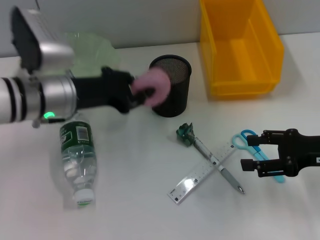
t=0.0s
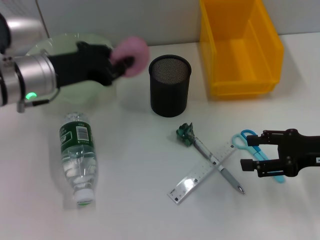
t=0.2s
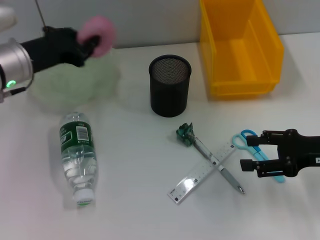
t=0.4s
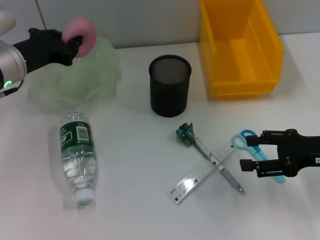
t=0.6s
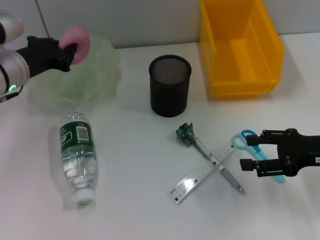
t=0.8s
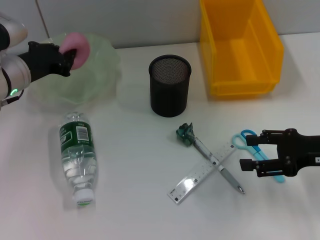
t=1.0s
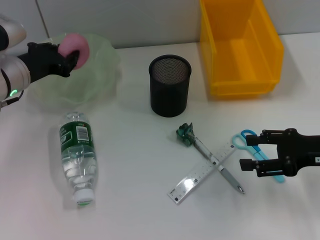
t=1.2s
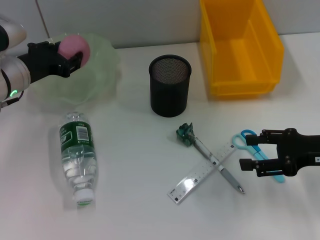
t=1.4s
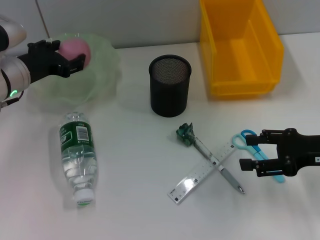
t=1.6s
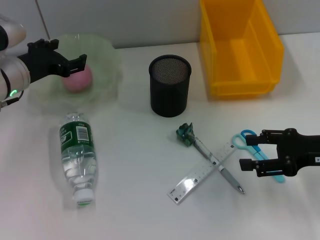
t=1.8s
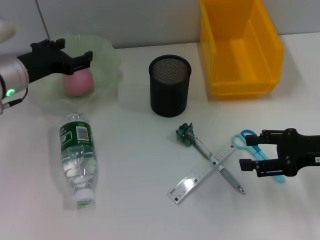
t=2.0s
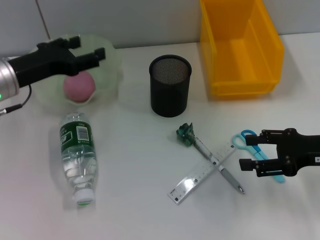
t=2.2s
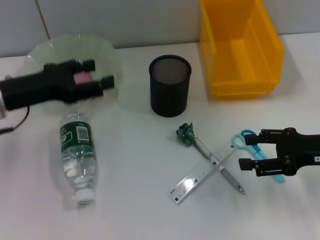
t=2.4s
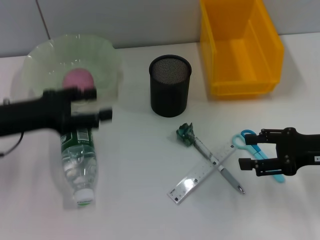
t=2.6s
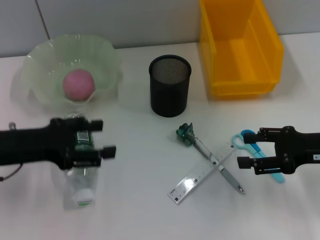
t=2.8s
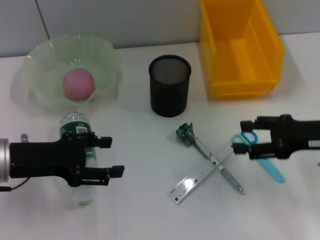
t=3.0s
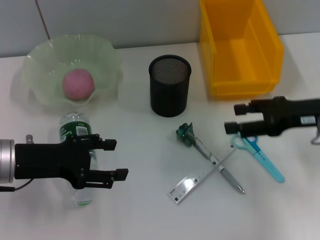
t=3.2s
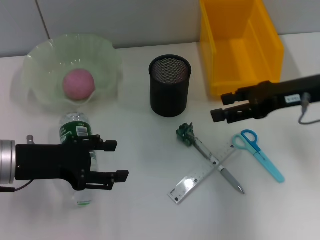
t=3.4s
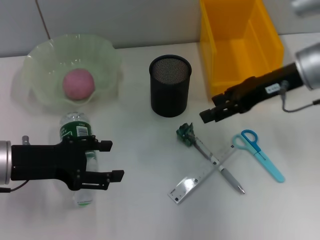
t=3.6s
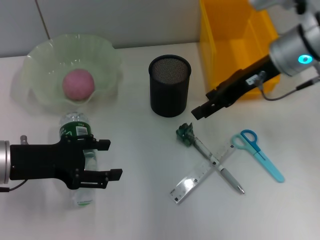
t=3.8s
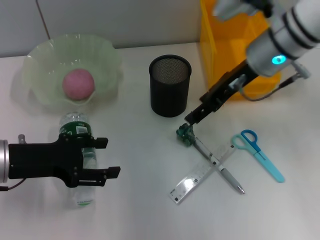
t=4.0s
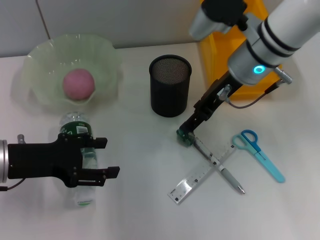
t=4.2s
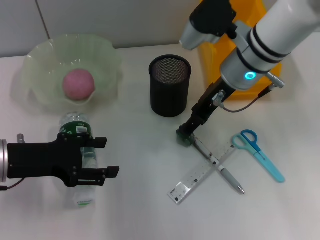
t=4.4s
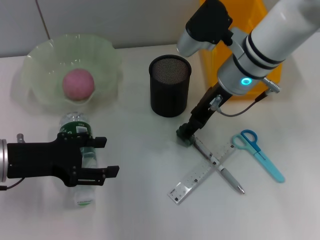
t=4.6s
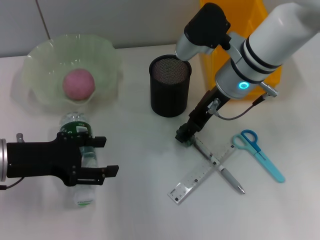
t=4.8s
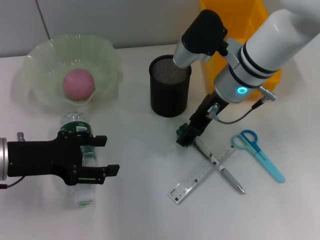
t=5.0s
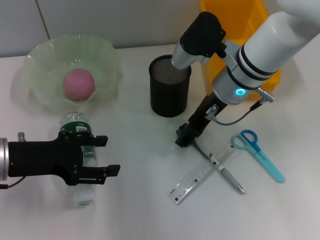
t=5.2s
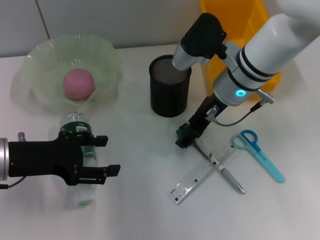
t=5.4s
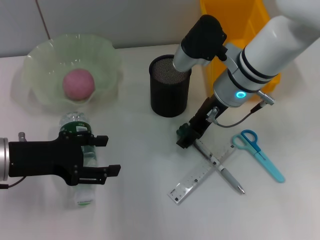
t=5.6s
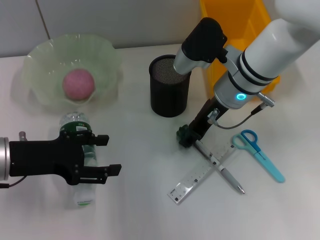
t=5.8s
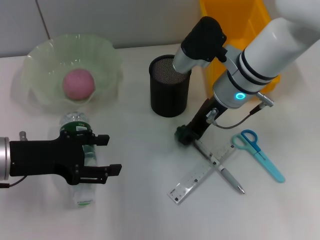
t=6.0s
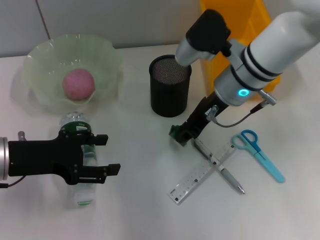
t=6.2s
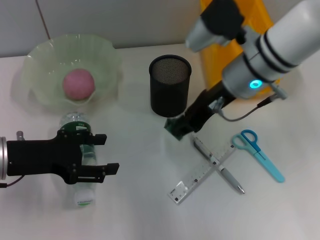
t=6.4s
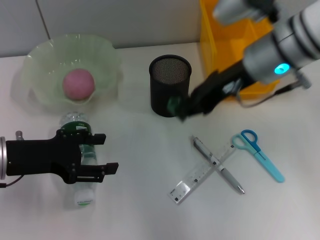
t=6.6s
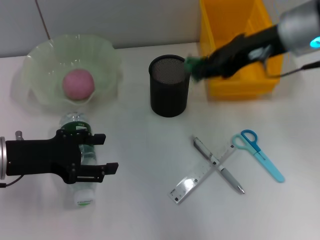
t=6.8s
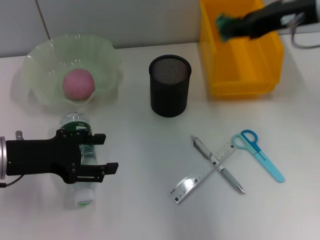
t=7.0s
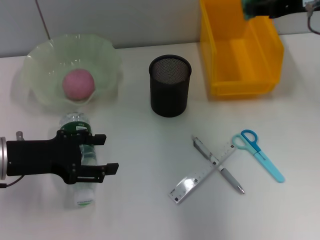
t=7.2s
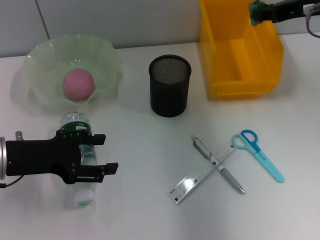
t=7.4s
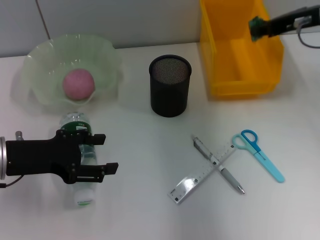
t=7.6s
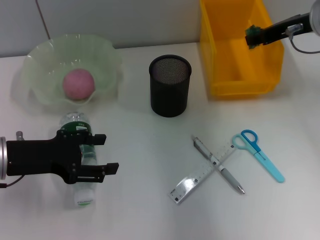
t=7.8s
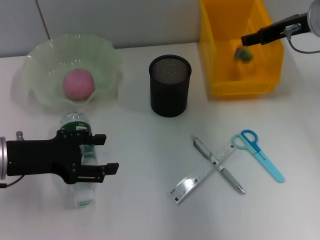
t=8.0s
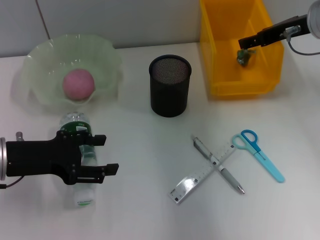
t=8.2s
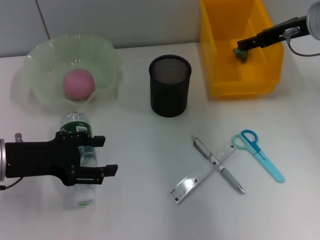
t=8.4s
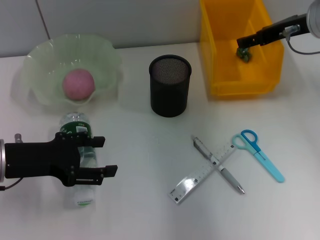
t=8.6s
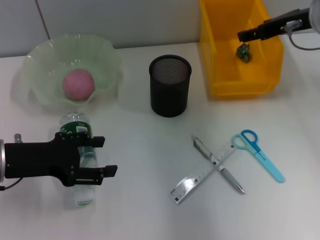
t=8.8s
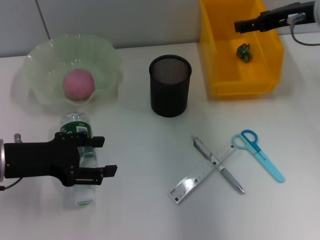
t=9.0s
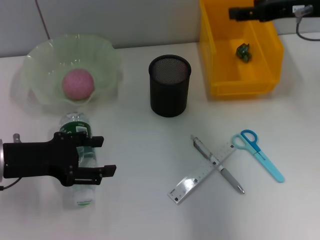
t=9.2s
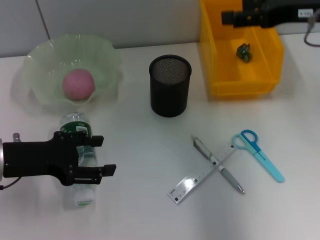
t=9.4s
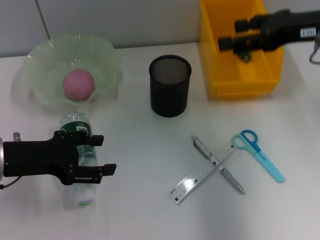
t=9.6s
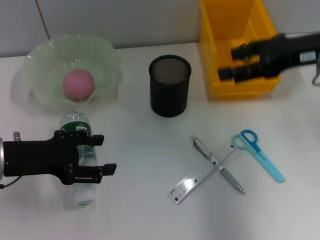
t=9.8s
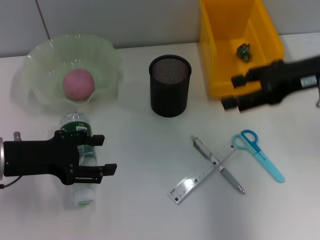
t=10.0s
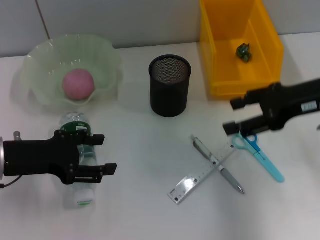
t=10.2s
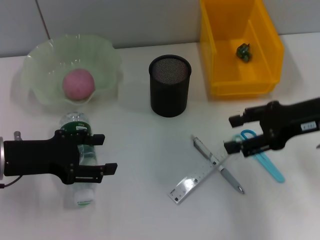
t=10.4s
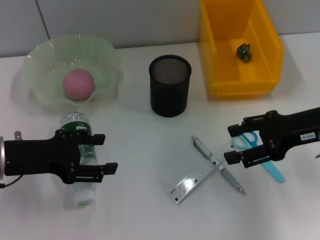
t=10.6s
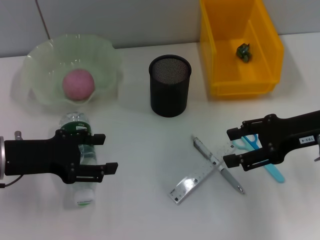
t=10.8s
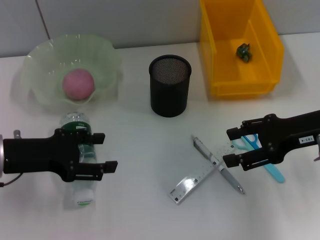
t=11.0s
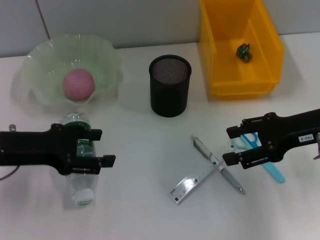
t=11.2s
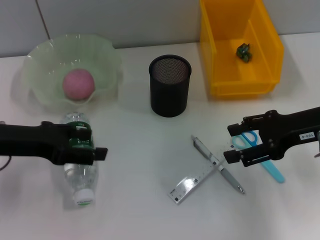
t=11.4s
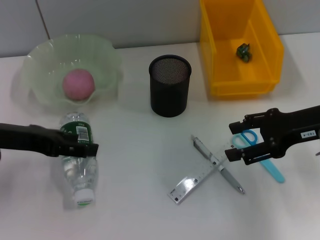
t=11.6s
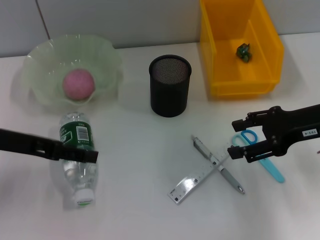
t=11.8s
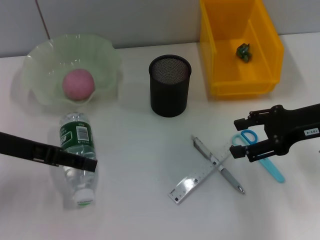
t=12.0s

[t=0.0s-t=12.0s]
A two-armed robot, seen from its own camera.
Step, t=0.0s to t=1.6s: Place the peach into the fruit bowl with the left hand.
Step, t=1.8s to t=5.8s: Grab the plastic with the right hand.
Step, t=6.0s to t=8.0s: Place the plastic into the trash can with the right hand.
t=0.0s to t=1.6s: The left gripper goes about 5 cm to the left.
t=1.6s to t=3.0s: The left gripper shifts approximately 10 cm backward, and opens up.
t=3.0s to t=4.4s: The right gripper is displaced to the left and forward by roughly 20 cm.
t=4.4s to t=6.0s: There are only small adjustments of the grippers.
t=6.0s to t=7.6s: The right gripper shifts about 15 cm to the right and upward, and closes.
t=7.6s to t=9.0s: The right gripper opens.
t=9.0s to t=10.4s: The right gripper heads backward and downward, covering roughly 10 cm.
t=10.4s to t=12.0s: The left gripper goes about 5 cm upward.

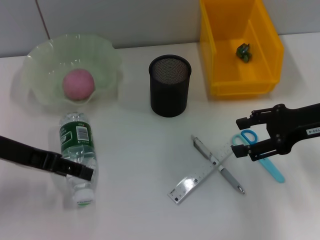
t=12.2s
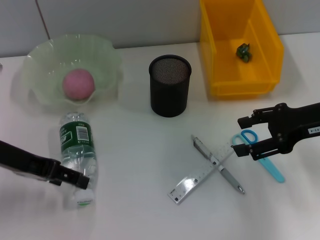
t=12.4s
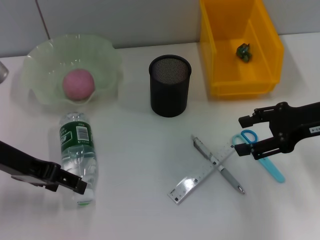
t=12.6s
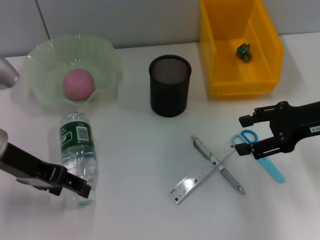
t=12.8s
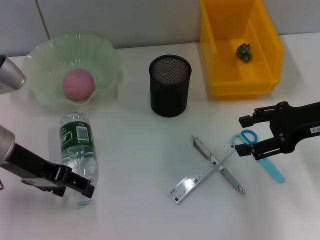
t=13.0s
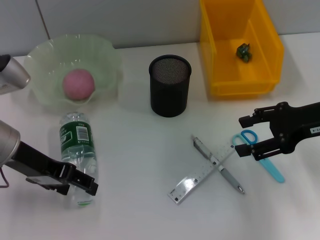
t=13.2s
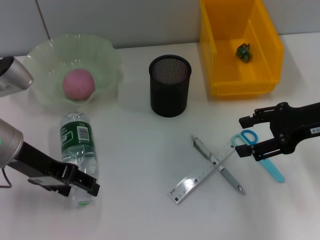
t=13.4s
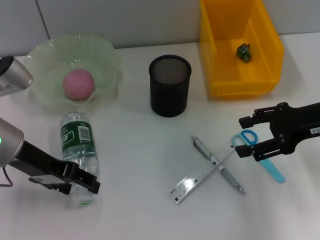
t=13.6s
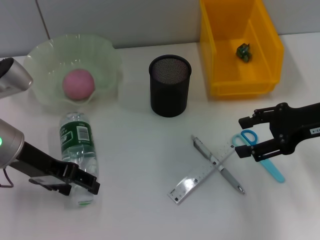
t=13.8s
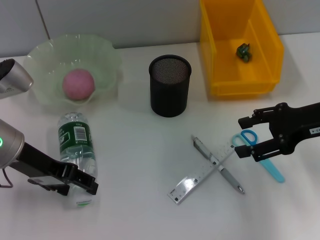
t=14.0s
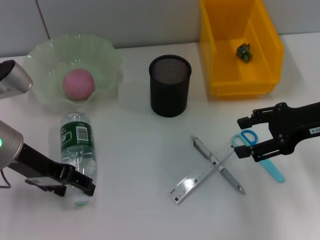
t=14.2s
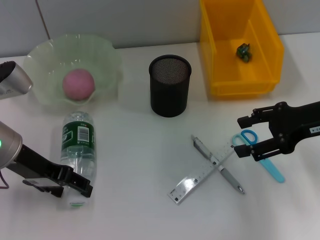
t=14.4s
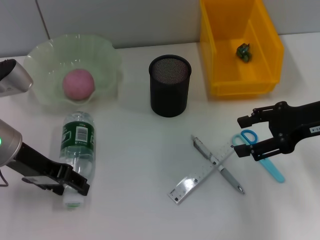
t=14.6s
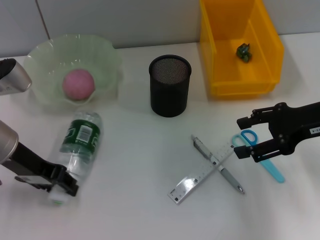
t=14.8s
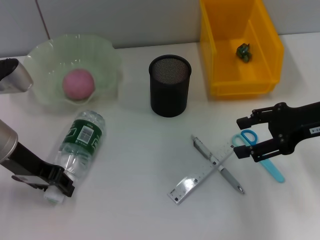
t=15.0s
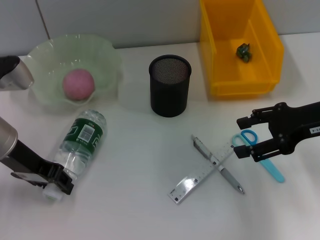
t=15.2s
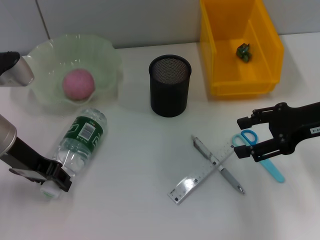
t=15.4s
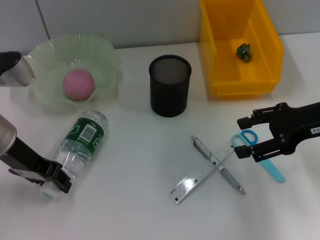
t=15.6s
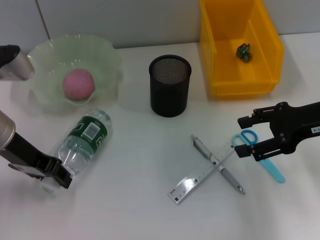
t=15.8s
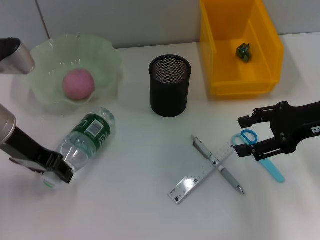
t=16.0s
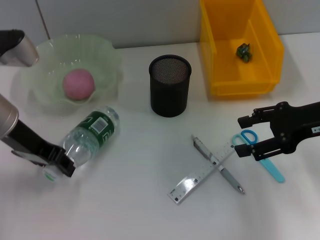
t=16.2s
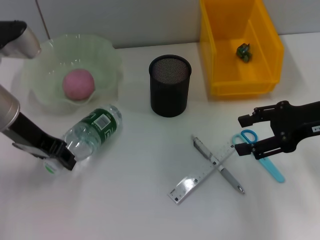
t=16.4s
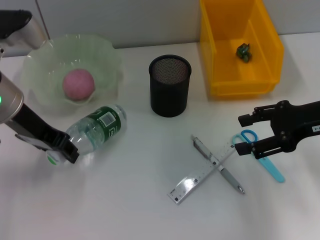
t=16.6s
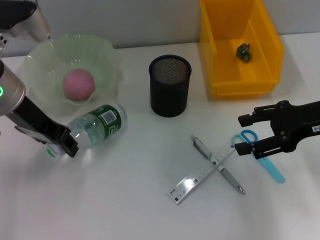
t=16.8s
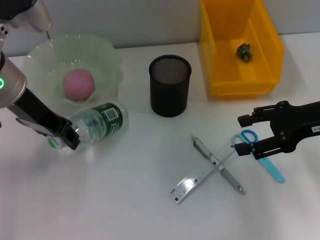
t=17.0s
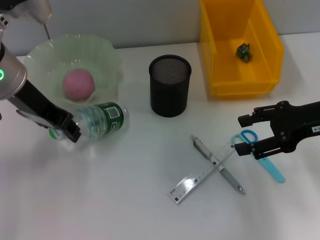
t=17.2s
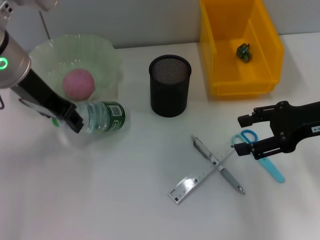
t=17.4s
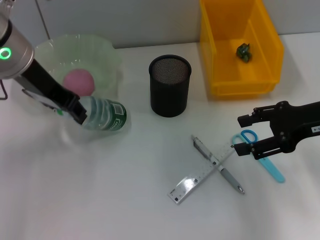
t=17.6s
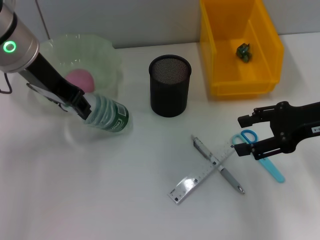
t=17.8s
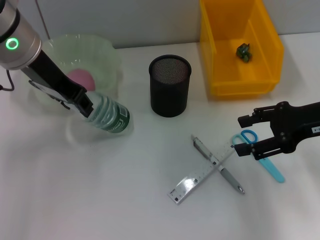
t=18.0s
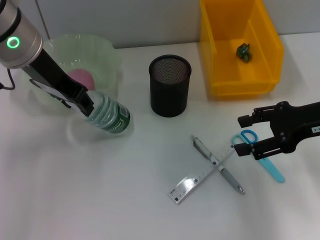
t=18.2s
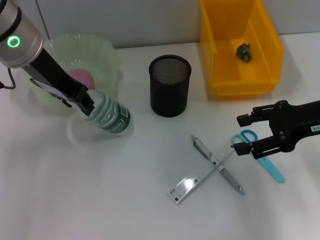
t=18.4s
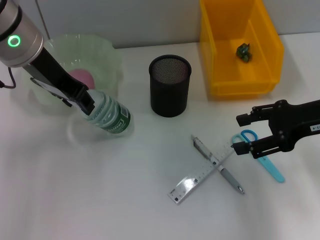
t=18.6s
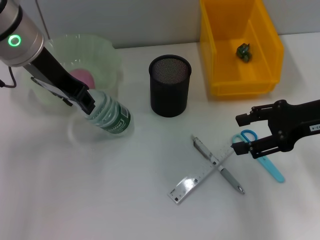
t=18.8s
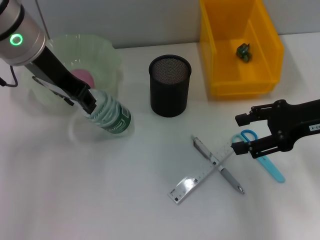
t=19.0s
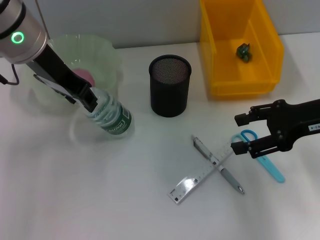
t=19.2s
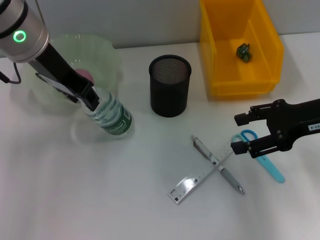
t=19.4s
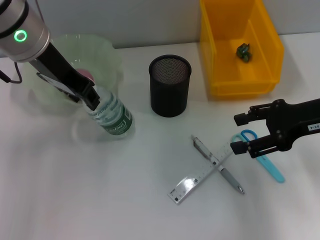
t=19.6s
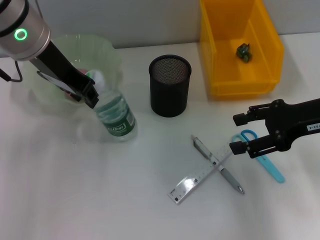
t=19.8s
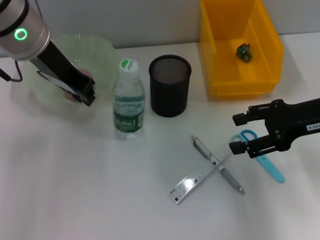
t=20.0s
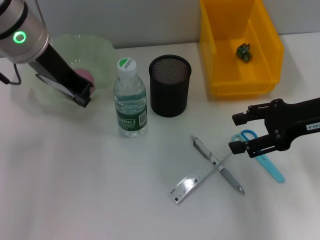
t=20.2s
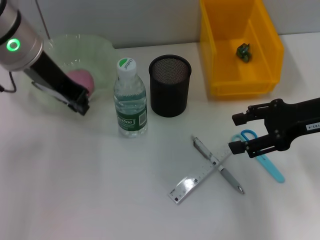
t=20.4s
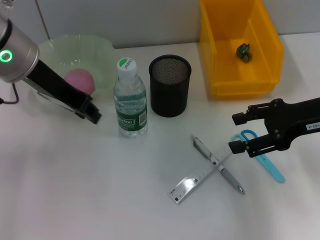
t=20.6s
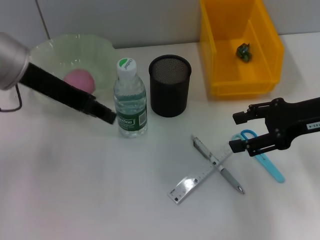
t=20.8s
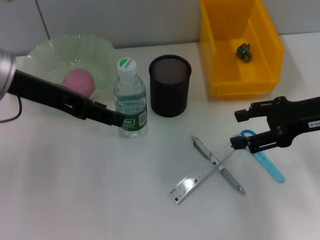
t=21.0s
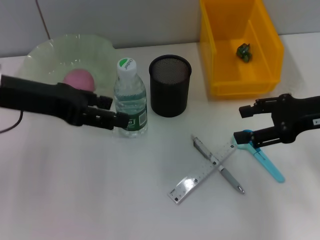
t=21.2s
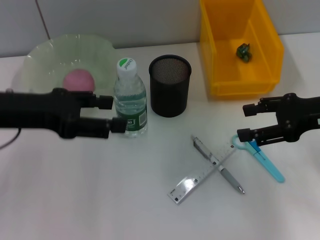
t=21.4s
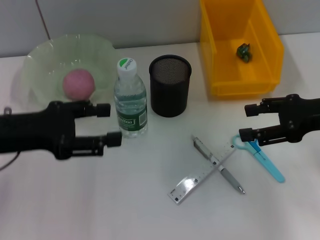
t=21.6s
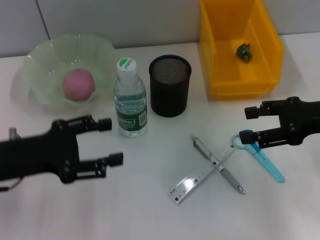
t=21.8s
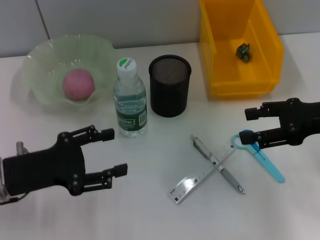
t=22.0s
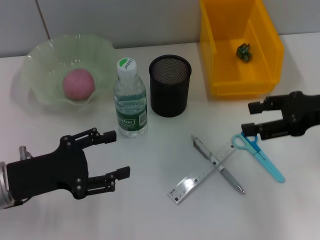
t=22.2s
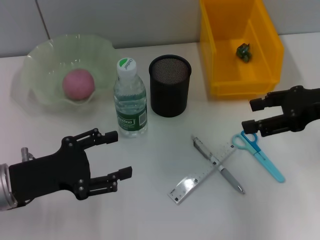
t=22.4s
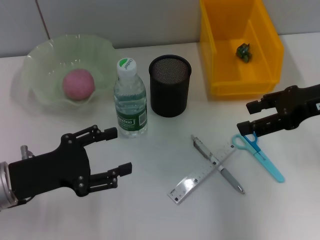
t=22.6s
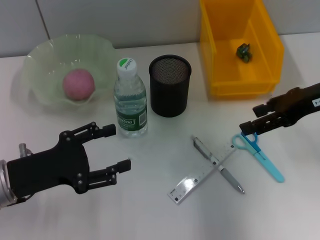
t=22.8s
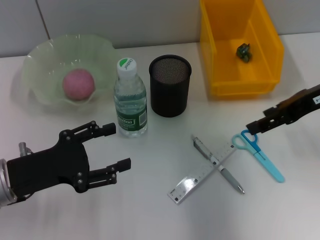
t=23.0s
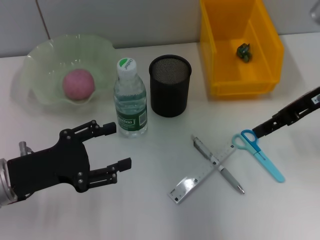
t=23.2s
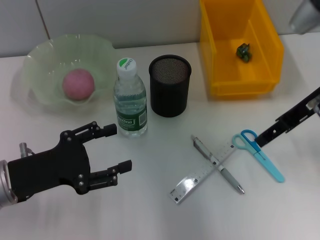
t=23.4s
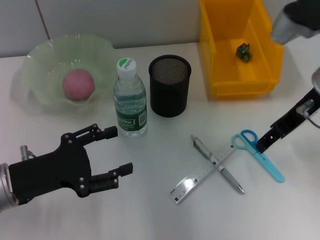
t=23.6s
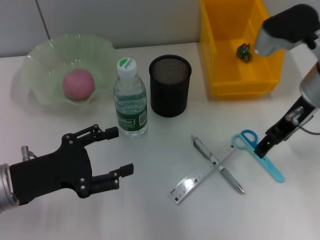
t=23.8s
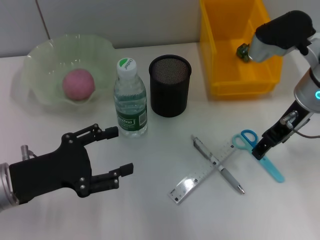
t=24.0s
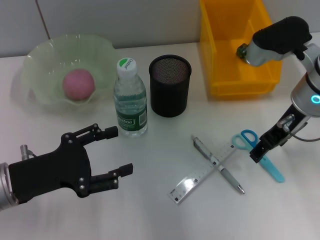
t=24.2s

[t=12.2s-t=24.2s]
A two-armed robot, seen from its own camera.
Step, t=12.2s to t=15.4s: Grab the water bottle with the left hand.
Step, t=15.6s to t=20.0s: Place the water bottle on the table with the left hand.
t=12.2s to t=13.8s: There are only small adjustments of the grippers.
t=13.8s to t=15.2s: The left gripper closes its fingers.
t=15.2s to t=16.6s: The left gripper shifts approximately 5 cm upward.
t=16.6s to t=18.2s: The left gripper moves upward, about 5 cm.
t=18.2s to t=19.8s: Both grippers stay put.
t=19.8s to t=21.2s: The left gripper is displaced to the left and backward by roughly 10 cm, and opens.
t=21.2s to t=22.6s: The left gripper travels downward and backward by roughly 15 cm.
t=22.6s to t=24.2s: The right gripper heads to the left, covering approximately 10 cm.
